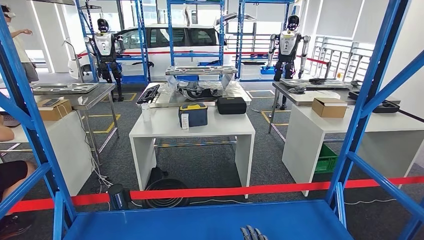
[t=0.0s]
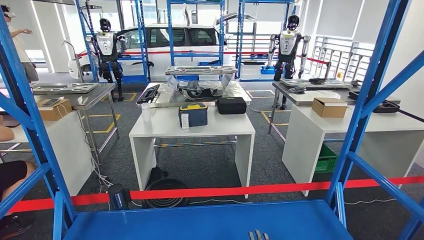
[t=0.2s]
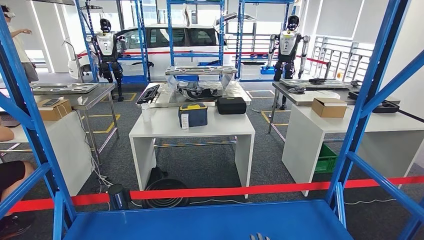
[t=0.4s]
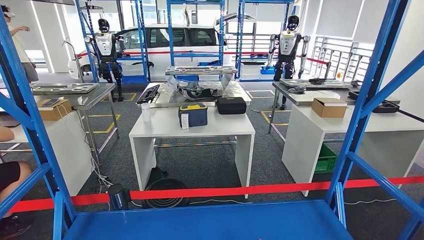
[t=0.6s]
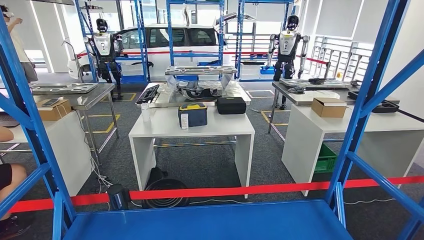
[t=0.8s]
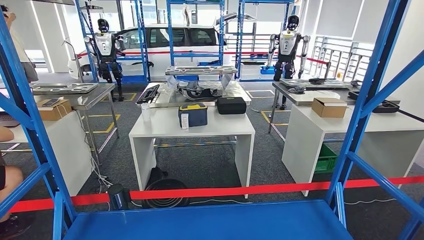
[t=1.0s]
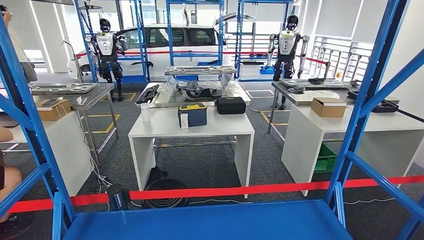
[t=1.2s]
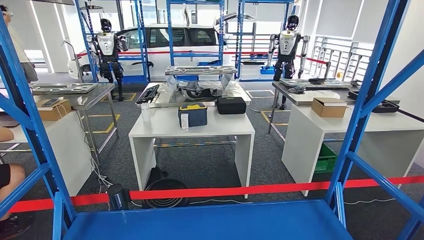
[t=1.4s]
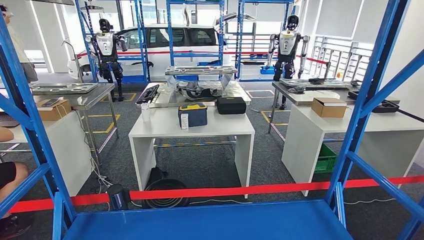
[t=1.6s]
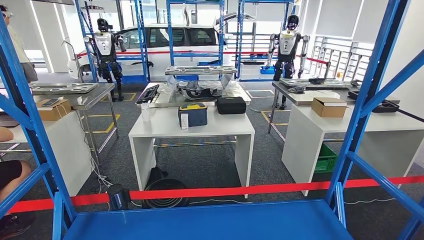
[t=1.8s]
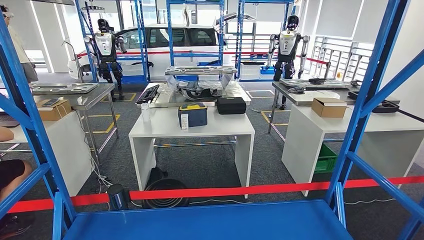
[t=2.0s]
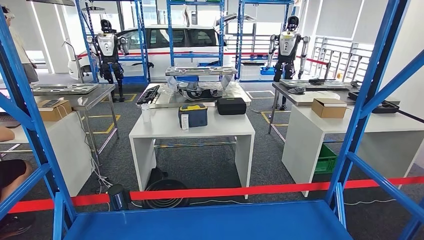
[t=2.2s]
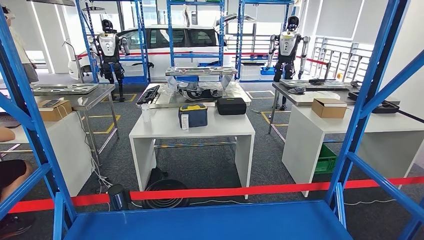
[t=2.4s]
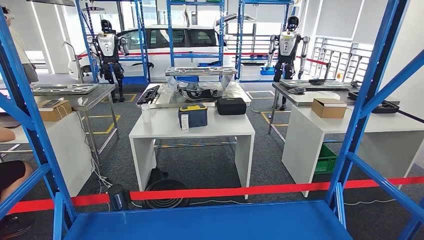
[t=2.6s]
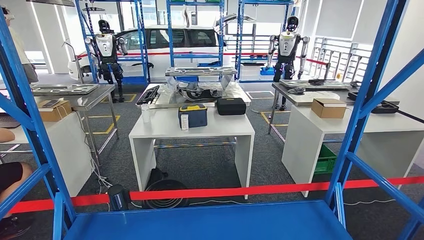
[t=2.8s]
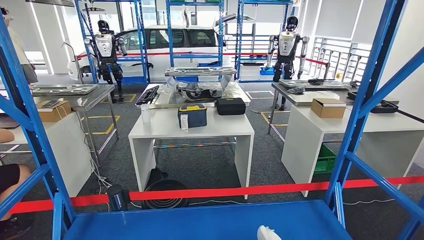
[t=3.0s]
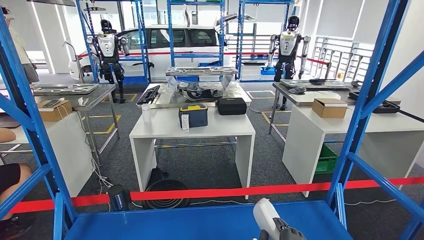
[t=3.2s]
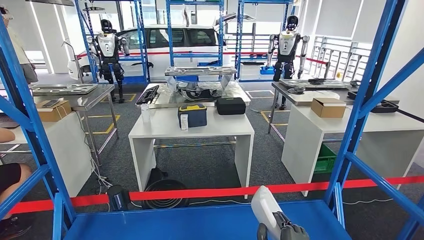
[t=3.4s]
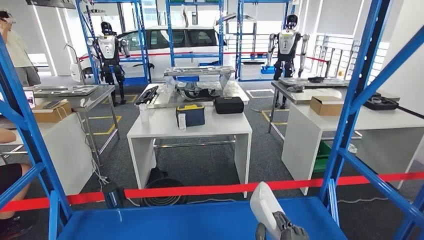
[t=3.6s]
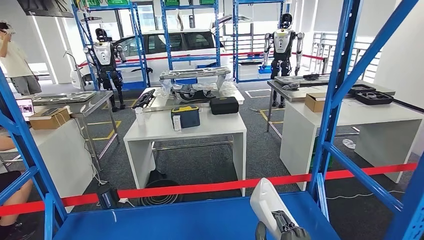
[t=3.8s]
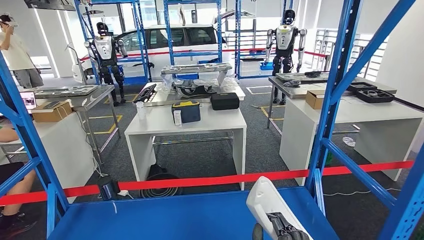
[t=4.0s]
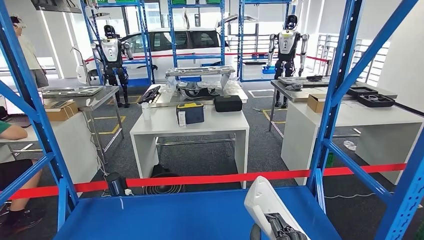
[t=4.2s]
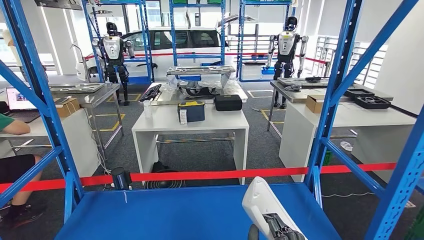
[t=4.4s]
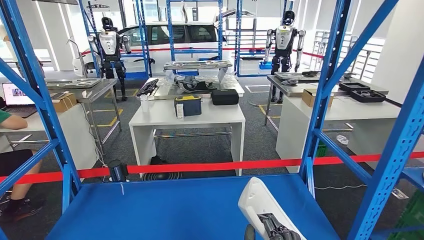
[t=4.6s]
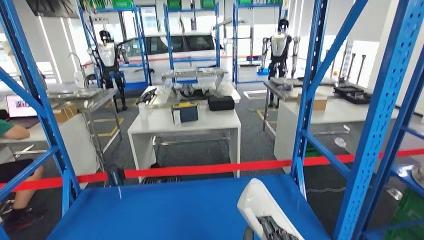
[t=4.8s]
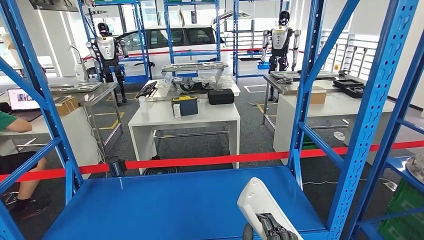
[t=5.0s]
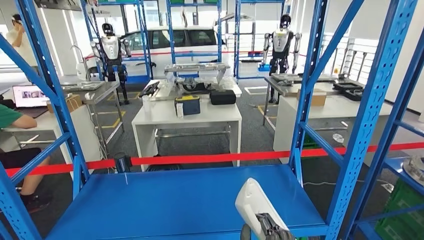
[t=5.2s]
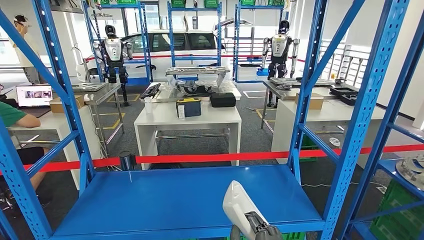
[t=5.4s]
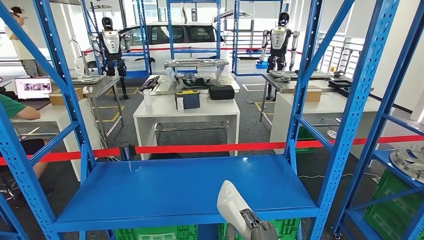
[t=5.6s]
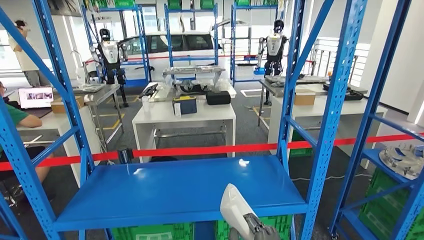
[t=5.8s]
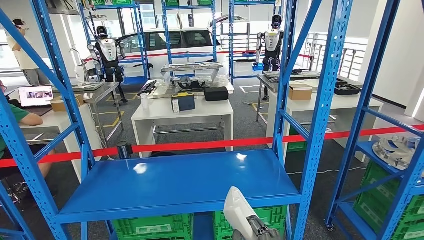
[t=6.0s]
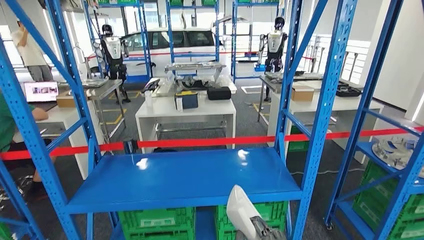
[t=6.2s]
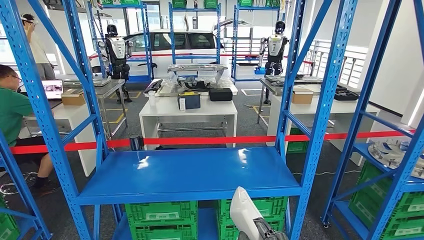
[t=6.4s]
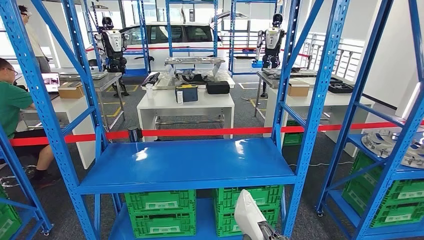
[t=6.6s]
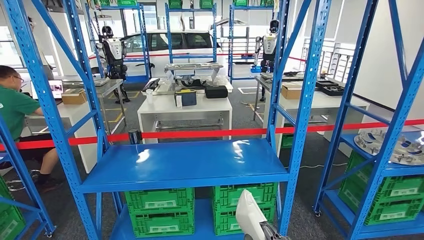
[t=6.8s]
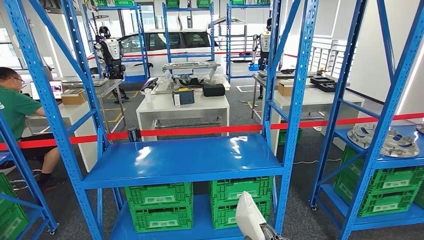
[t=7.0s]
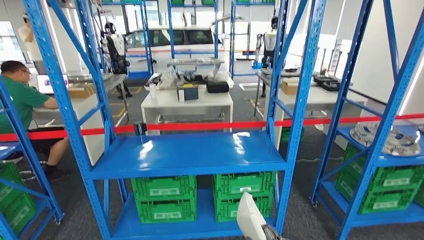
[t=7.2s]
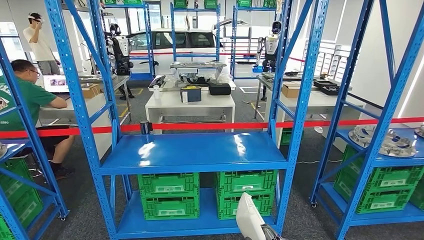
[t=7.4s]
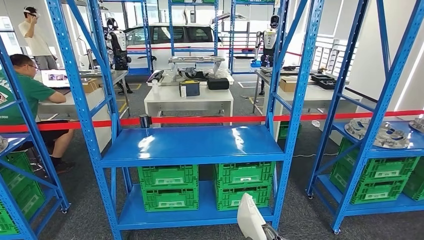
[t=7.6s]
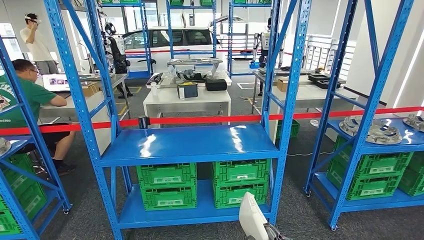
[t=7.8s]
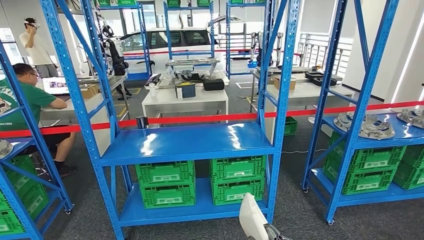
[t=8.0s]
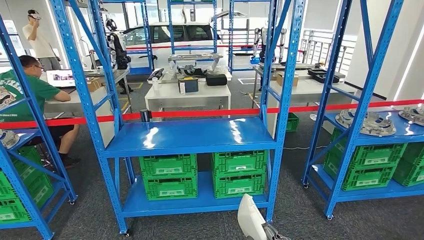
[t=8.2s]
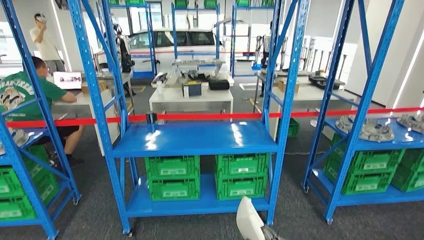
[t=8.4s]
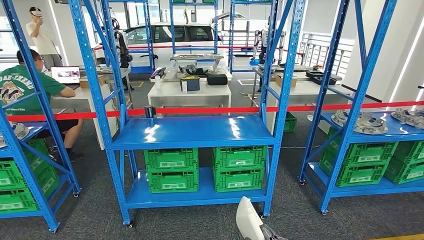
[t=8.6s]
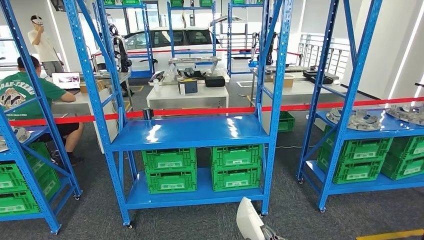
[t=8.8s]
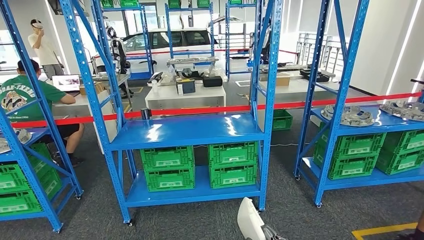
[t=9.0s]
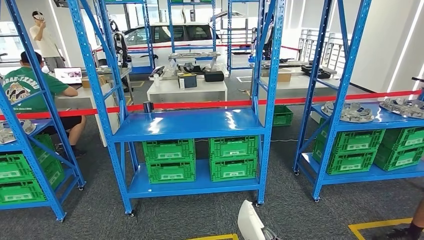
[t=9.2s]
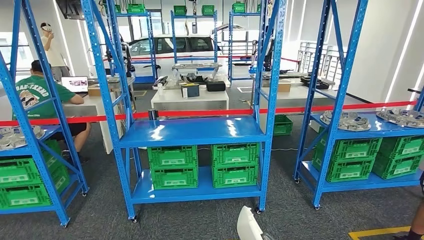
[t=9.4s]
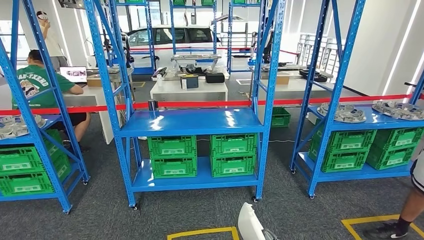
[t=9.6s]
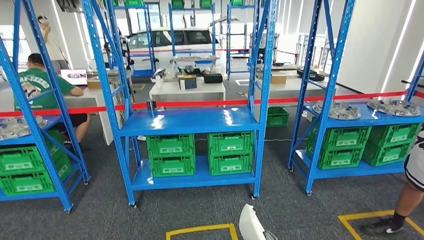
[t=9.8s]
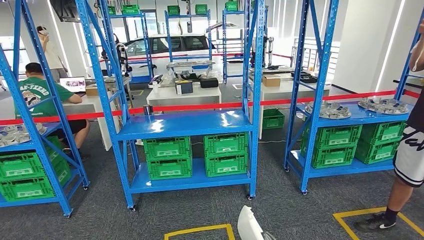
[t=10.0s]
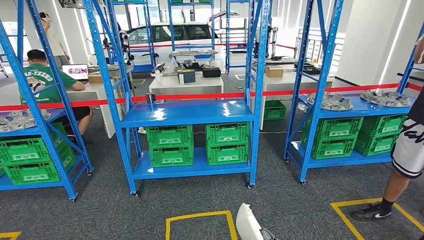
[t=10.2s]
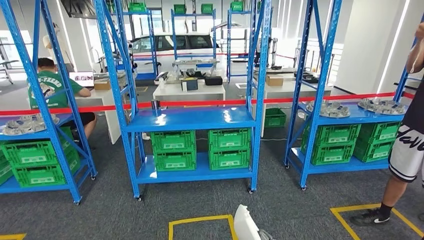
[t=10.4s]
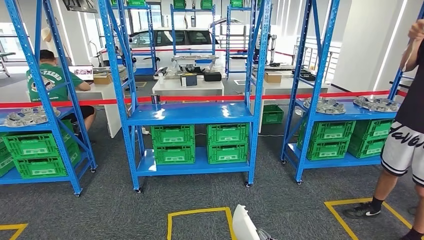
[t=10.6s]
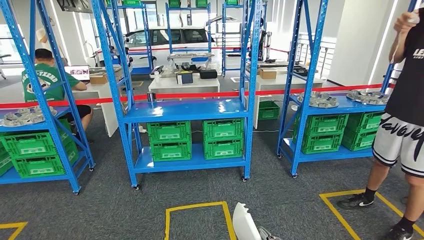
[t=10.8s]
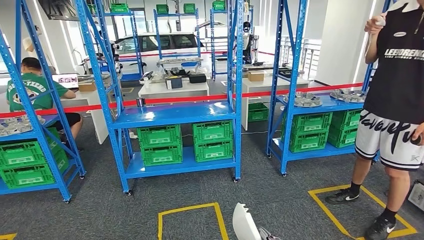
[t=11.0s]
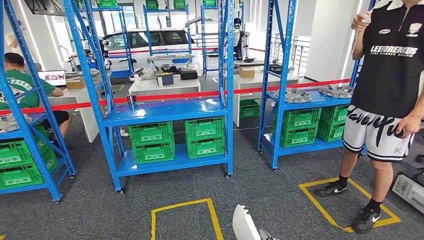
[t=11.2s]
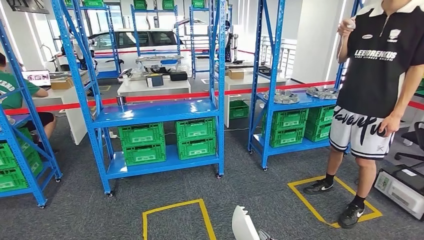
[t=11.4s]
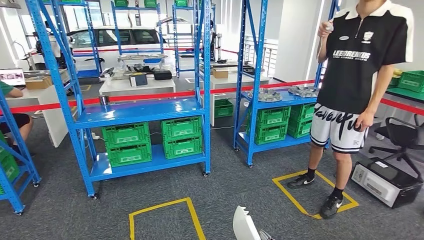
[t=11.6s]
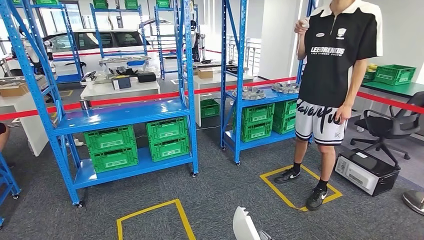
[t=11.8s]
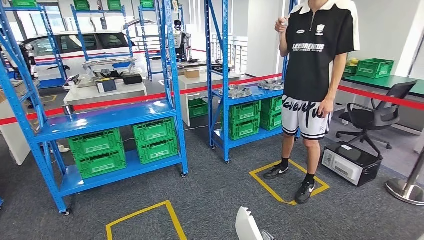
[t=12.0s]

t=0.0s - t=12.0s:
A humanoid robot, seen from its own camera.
Step, t=0.0s - t=4.2s: Take small components from the rack.
t=0.0s - t=1.6s: The right hand heads backward, covering about 10 cm.
t=1.6s - t=3.0s: The right hand ends up approximately 5 cm from where it was.

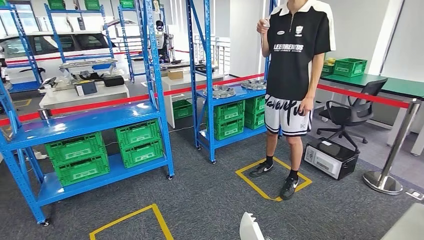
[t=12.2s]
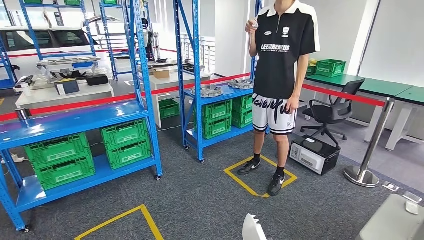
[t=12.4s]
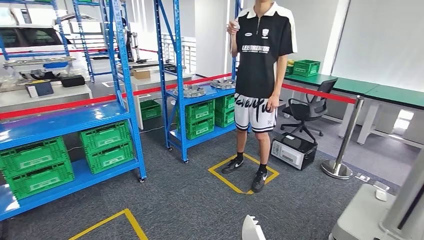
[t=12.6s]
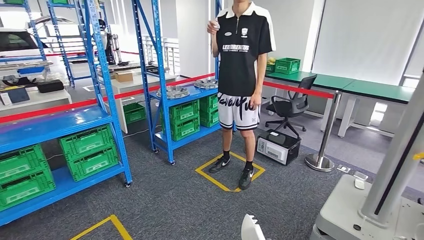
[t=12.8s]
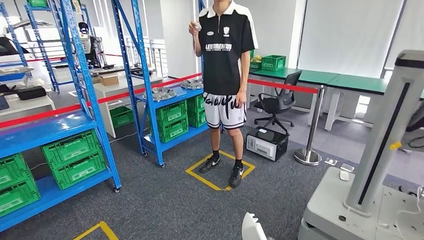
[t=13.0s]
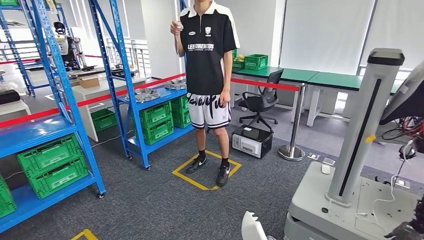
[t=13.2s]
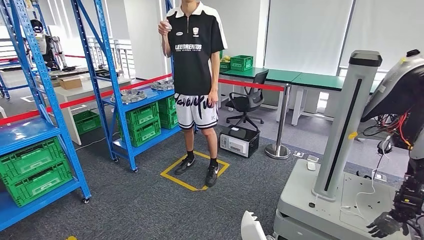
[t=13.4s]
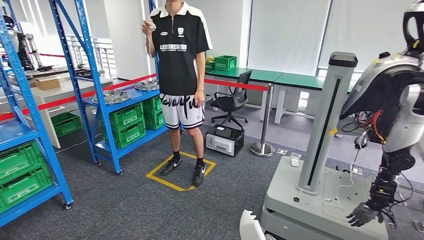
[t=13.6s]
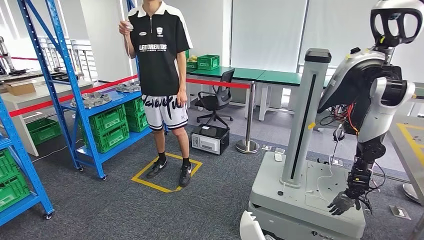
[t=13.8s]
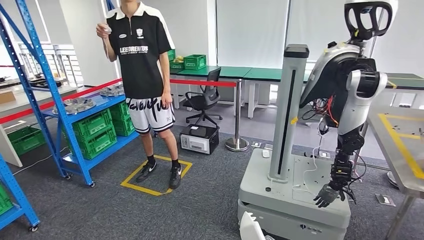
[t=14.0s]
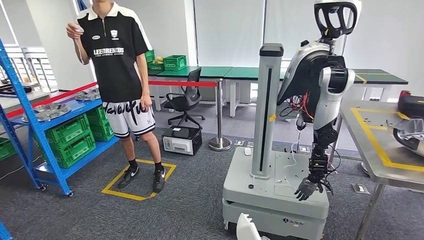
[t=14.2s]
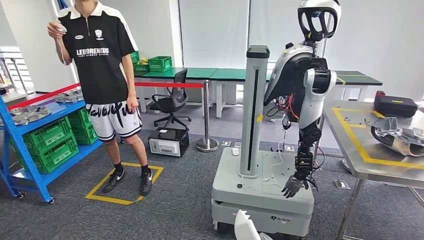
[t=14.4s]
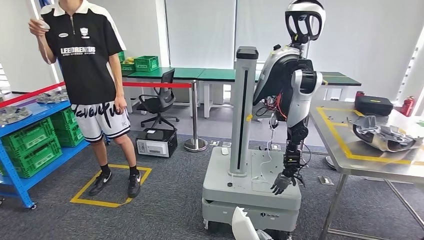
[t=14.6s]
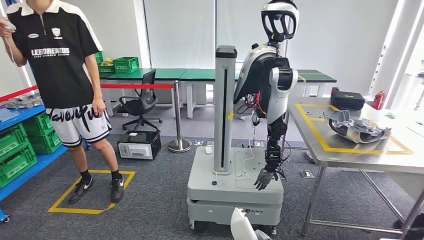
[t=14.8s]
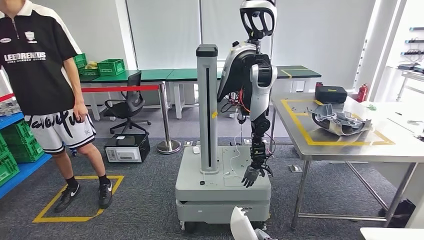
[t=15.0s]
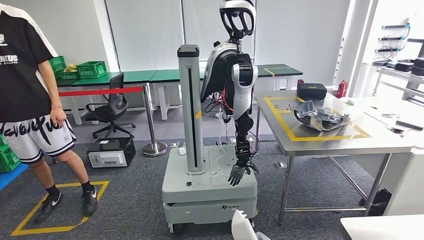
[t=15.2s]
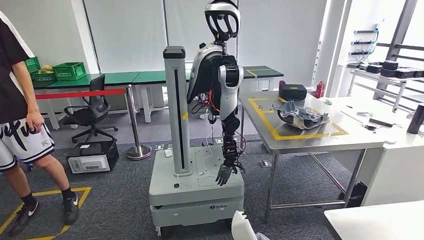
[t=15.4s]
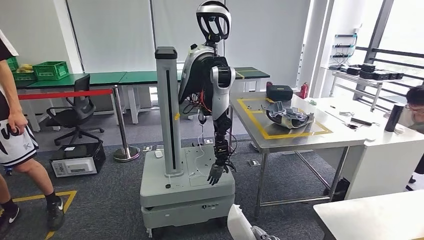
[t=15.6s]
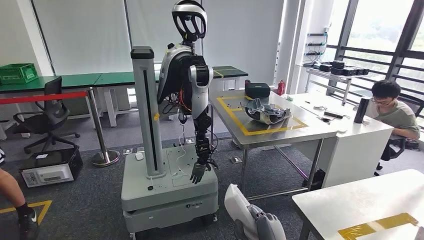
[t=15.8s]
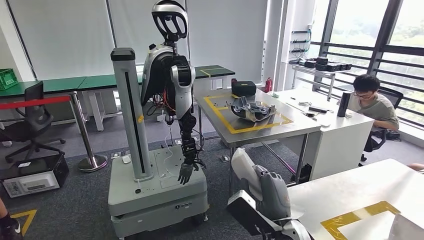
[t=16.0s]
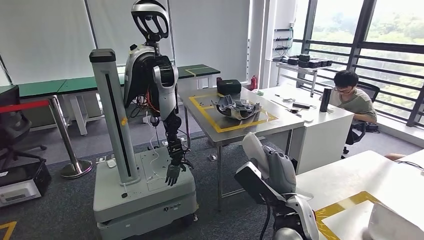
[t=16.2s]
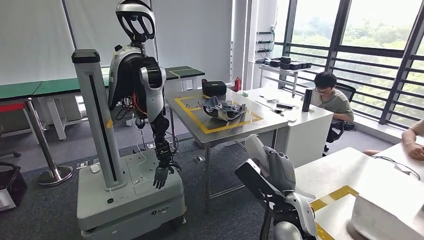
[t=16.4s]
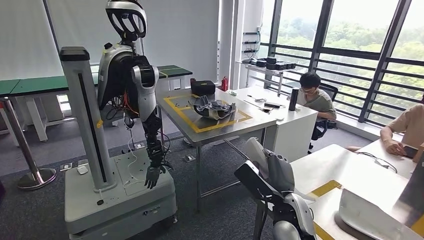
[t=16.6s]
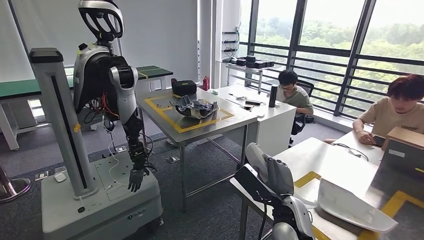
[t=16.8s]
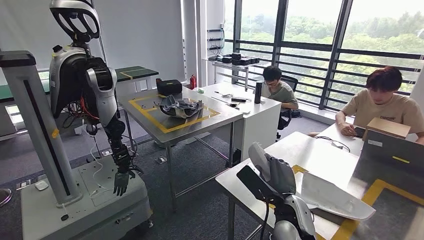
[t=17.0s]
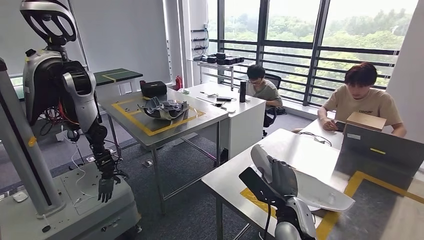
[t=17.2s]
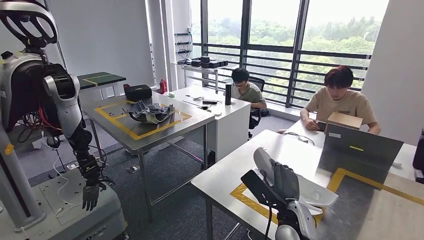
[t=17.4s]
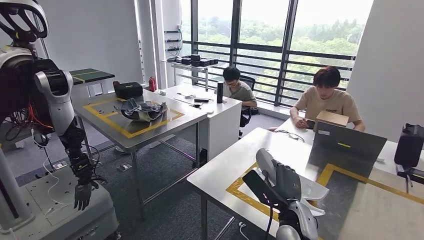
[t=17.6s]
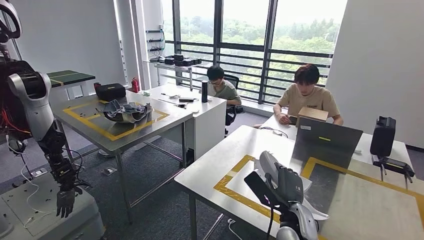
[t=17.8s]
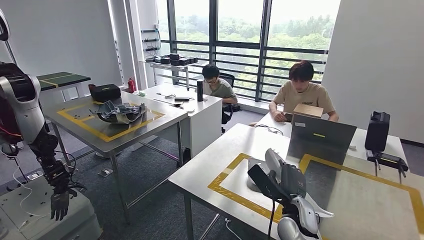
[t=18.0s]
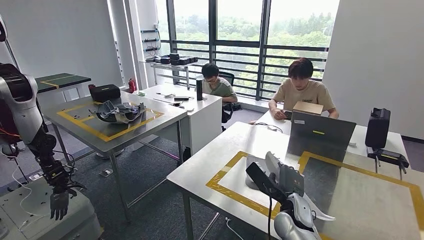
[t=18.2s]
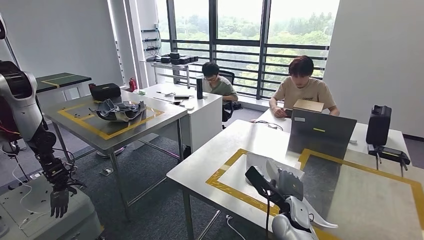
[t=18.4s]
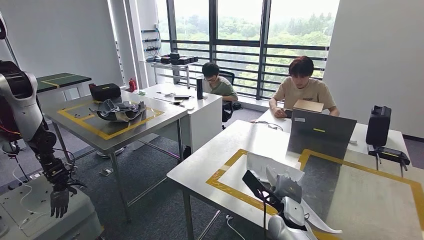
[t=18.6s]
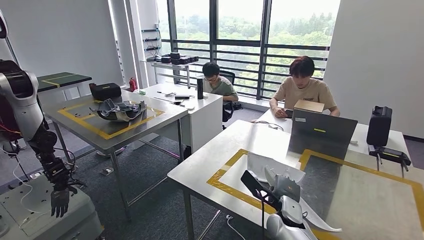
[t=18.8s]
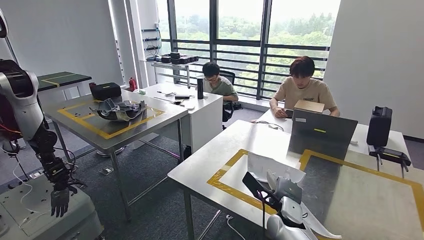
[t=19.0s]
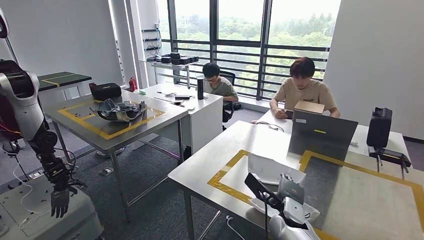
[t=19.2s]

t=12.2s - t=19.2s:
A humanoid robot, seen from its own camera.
Step, t=12.2s - t=17.2s: Move the small parts to the workbench.
